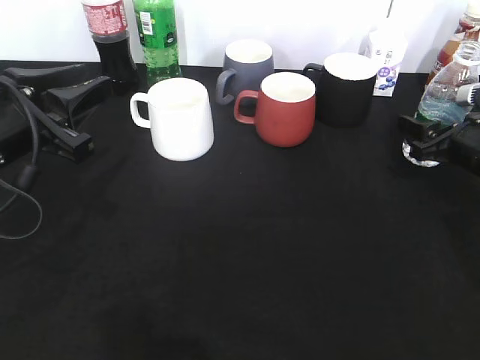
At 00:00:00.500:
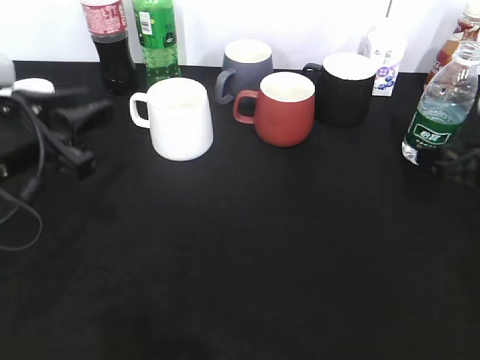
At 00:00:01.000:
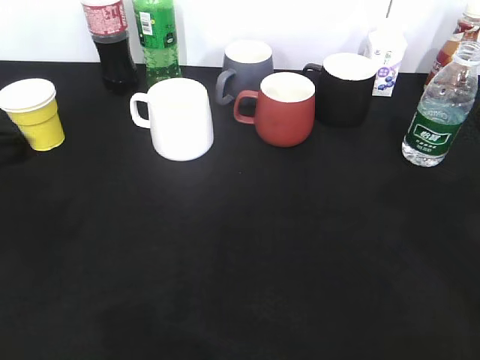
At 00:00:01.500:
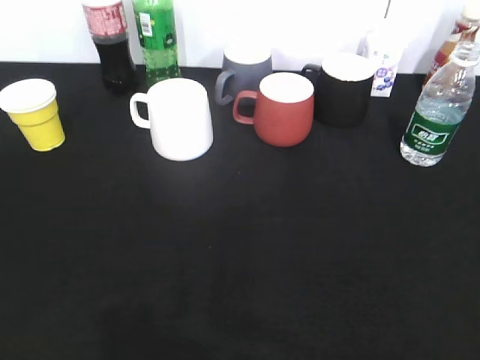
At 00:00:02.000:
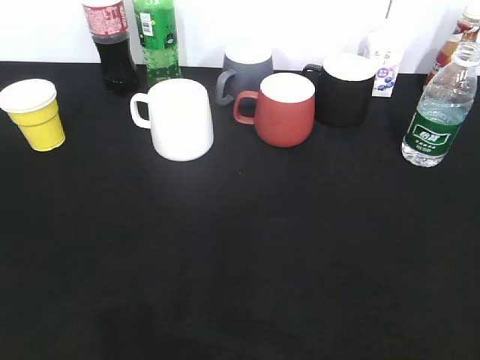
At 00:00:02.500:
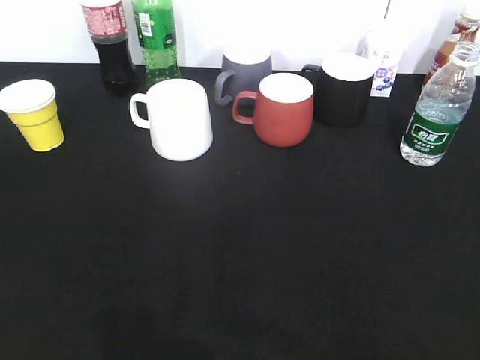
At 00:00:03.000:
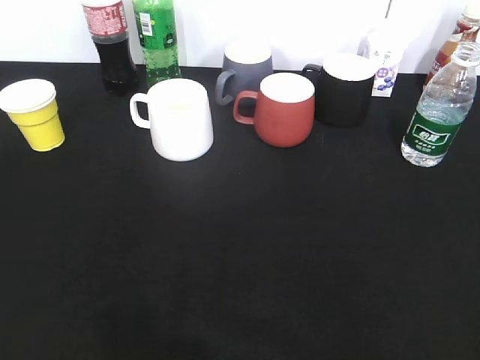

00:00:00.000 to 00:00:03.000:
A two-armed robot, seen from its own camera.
00:00:00.000 to 00:00:01.500: The left gripper shifts about 25 cm backward and to the left, while the right gripper shifts roughly 40 cm backward and upward, and opens, then closes again.
